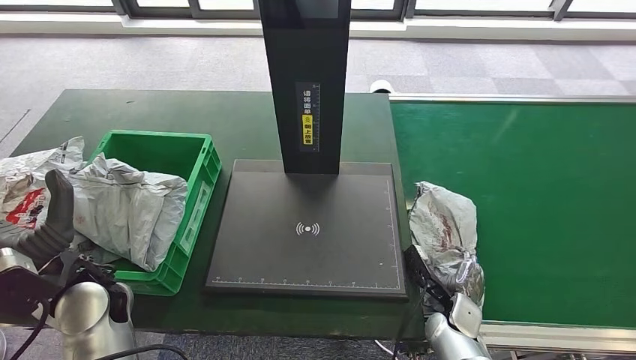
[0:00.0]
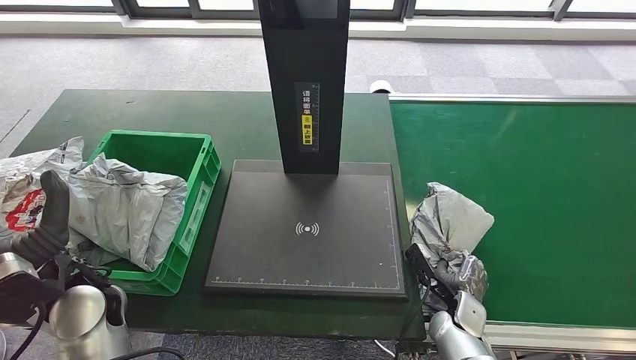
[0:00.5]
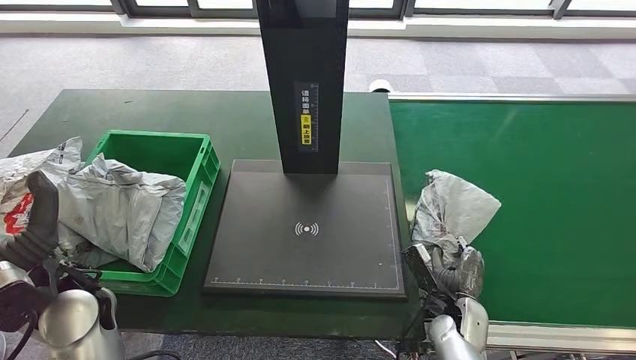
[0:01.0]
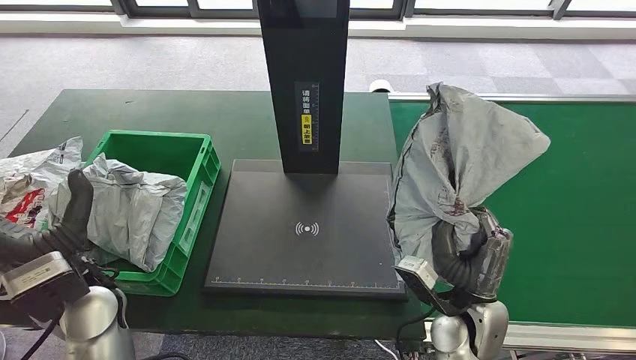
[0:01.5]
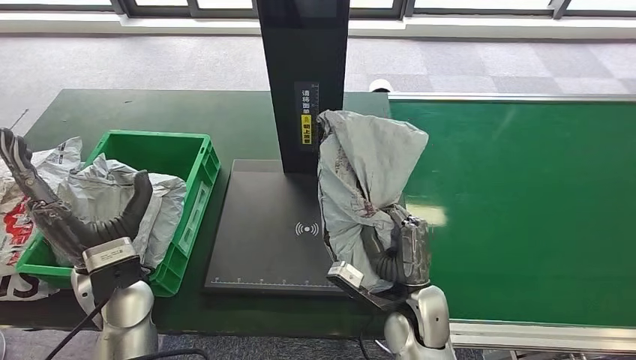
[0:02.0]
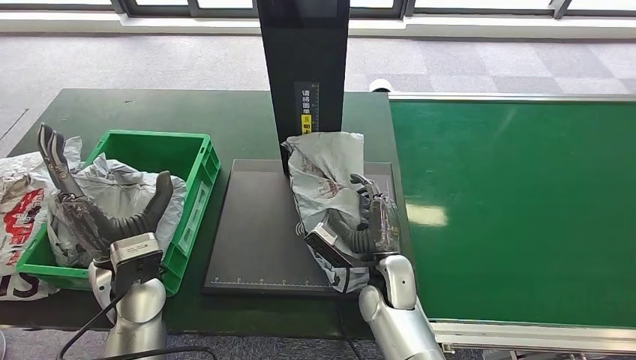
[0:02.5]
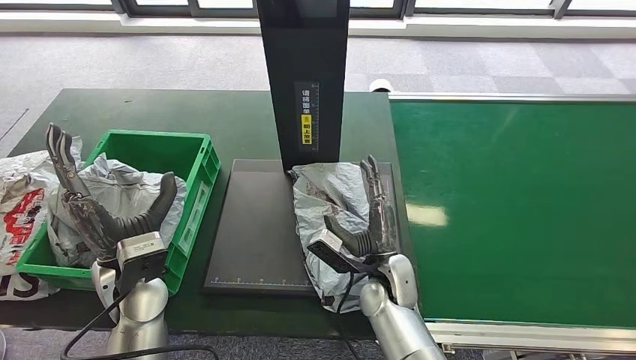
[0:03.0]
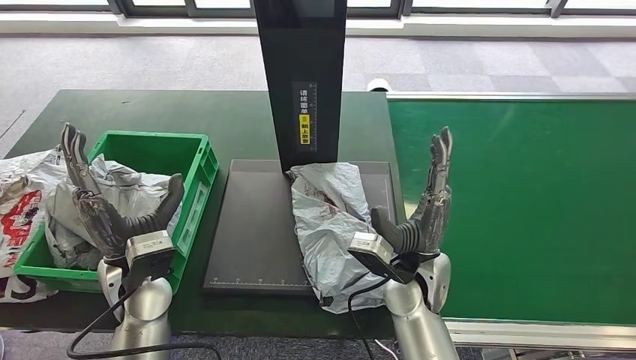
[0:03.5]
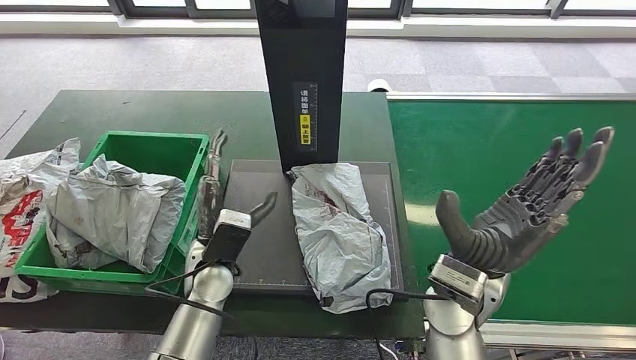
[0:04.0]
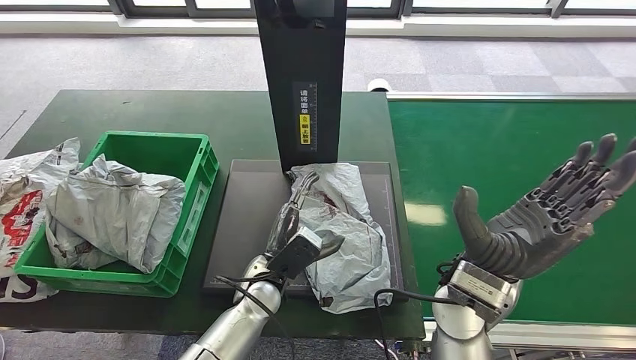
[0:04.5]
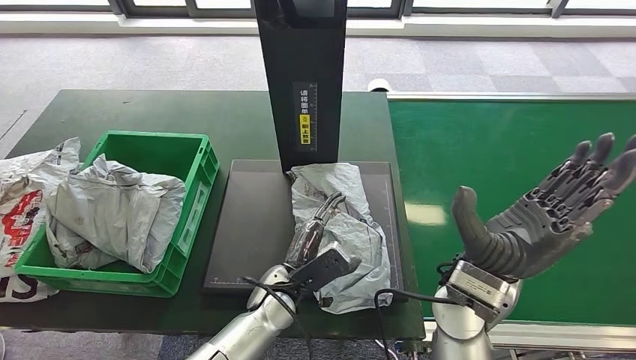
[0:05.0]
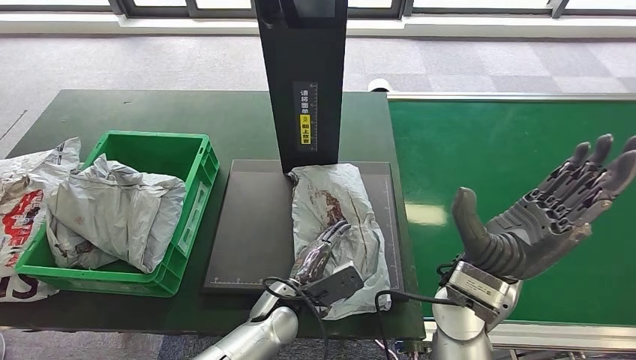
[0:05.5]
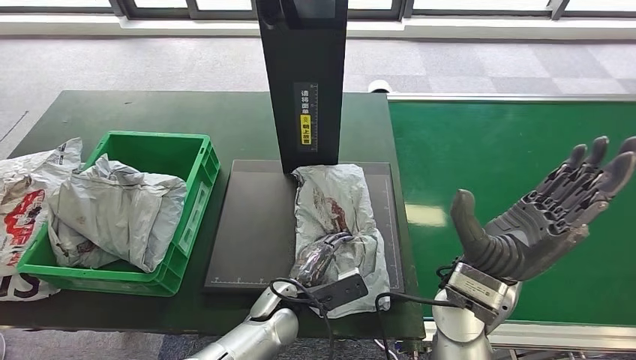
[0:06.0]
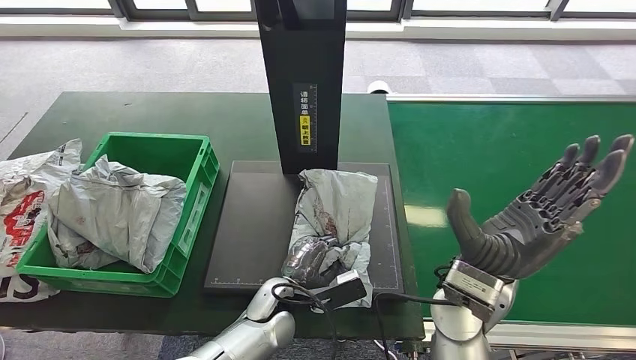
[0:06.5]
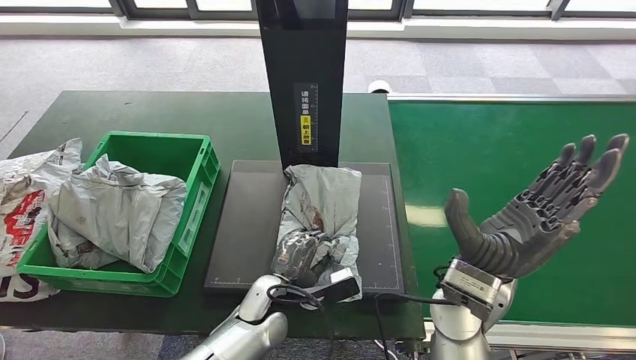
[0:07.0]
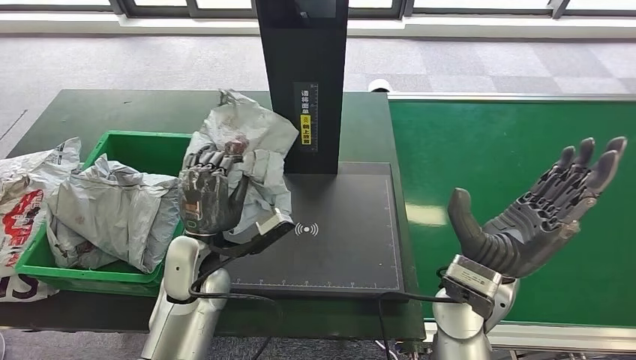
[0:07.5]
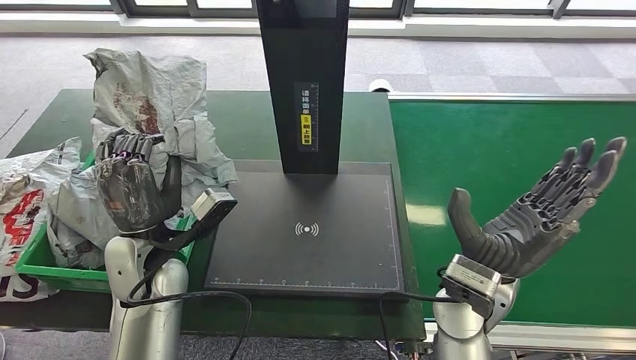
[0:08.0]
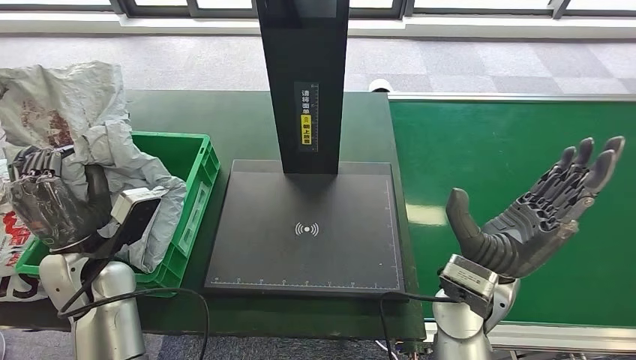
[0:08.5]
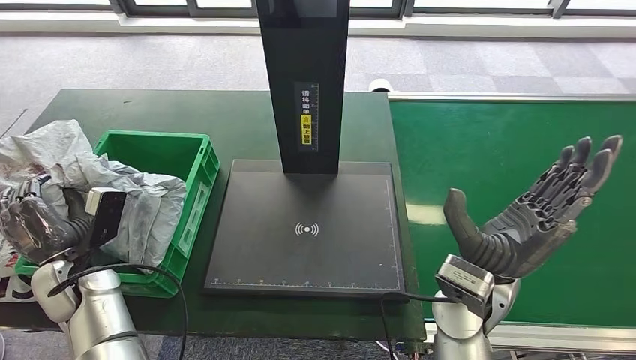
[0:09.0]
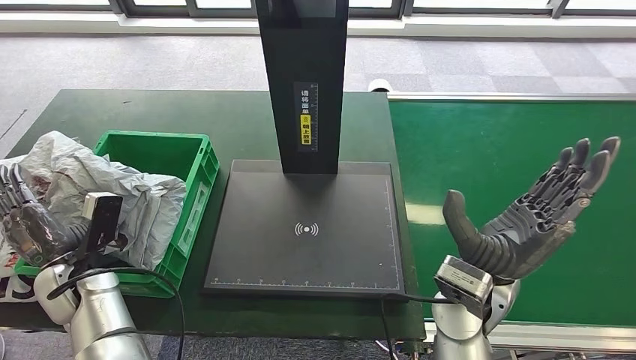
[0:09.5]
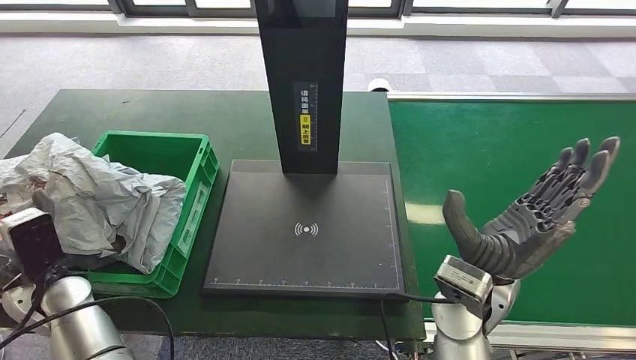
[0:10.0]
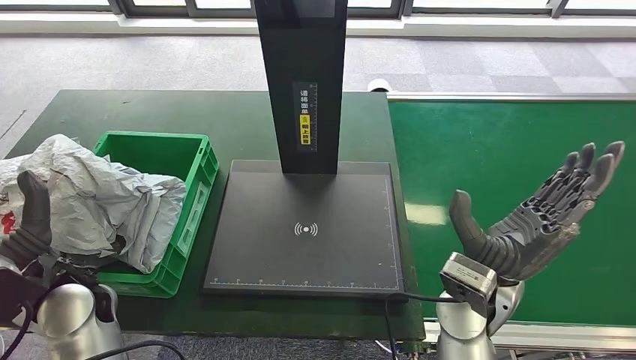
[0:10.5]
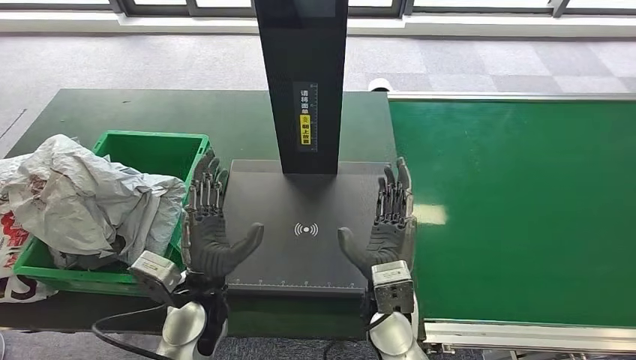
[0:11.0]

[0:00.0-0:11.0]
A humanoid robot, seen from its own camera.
Step, 0.5 to 1.5 s: Pick up the parcel from the conveyor belt.
Step, 2.0 to 4.0 s: Place the parcel onto the inbound machine.
Step, 7.0 to 8.5 s: Pick up the parcel from the inbound machine.
Step, 9.0 to 11.0 s: Place the parcel into the delivery box.
3.5 to 5.5 s: The left hand shifts about 20 cm to the right and downward; the right hand shifts some 10 cm upward and to the right.
5.5 to 7.5 s: The left hand moves to the left and upward, some 15 cm.
9.0 to 11.0 s: The right hand goes about 10 cm to the left and downward. The left hand is displaced to the right by approximately 20 cm.

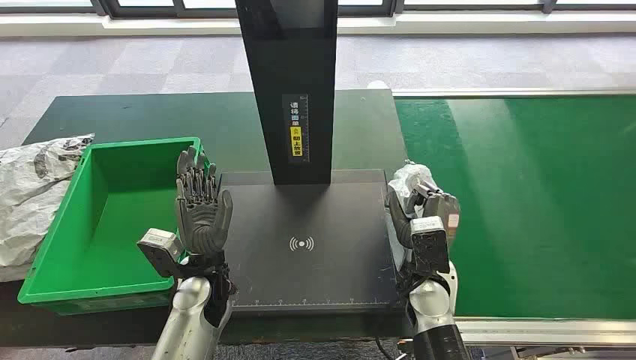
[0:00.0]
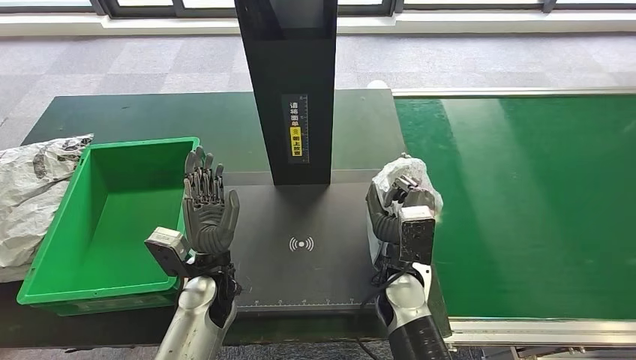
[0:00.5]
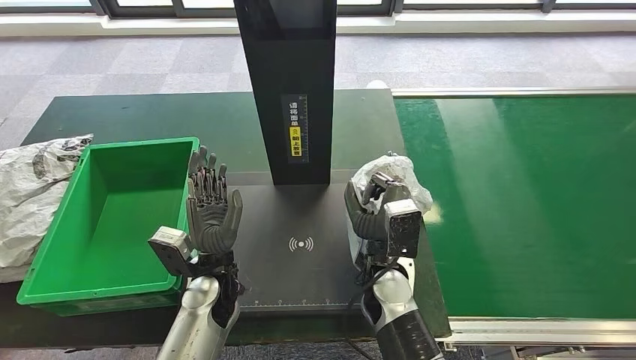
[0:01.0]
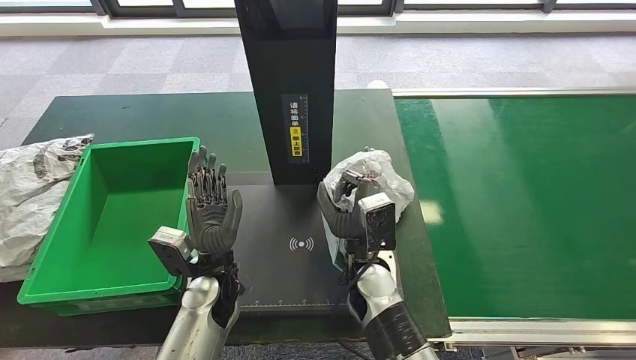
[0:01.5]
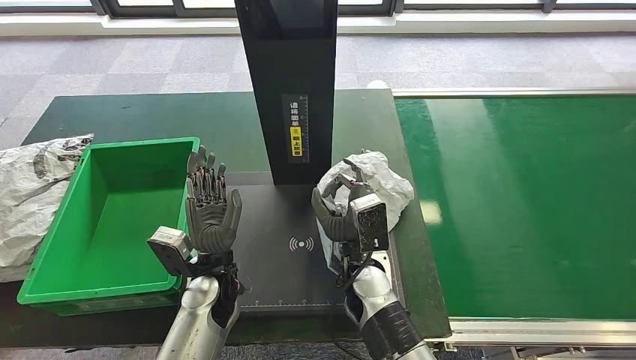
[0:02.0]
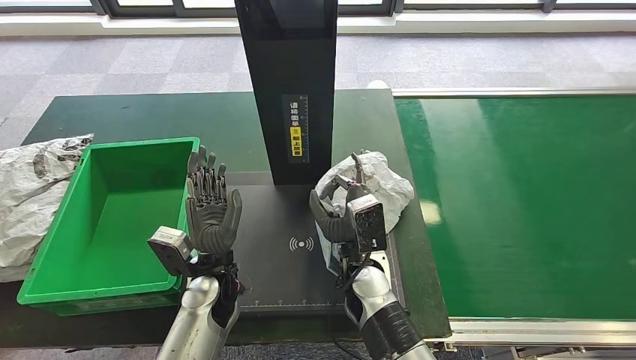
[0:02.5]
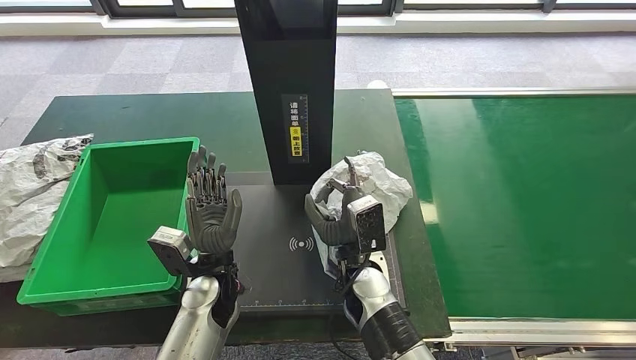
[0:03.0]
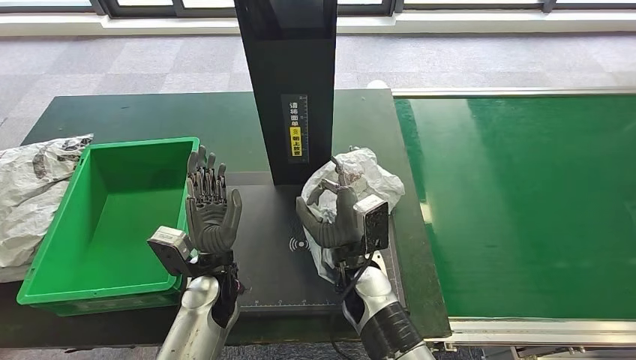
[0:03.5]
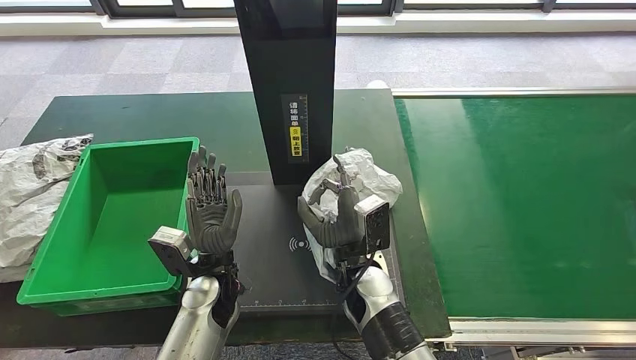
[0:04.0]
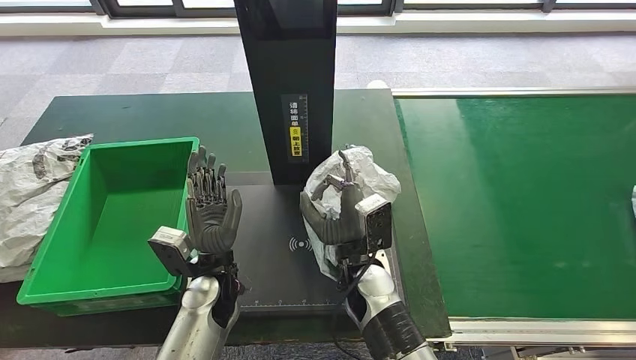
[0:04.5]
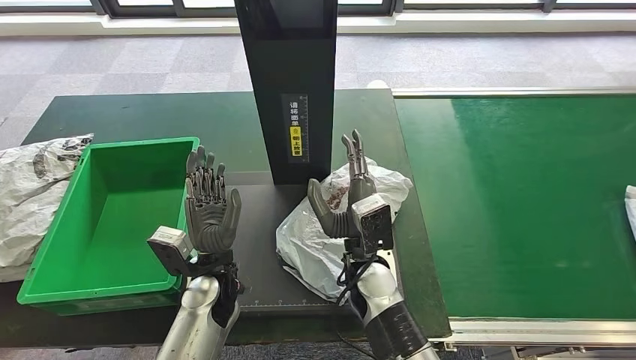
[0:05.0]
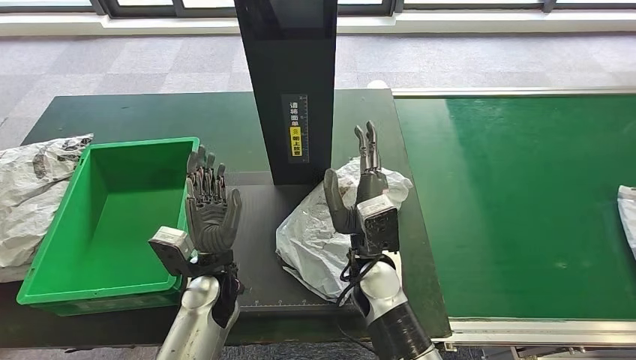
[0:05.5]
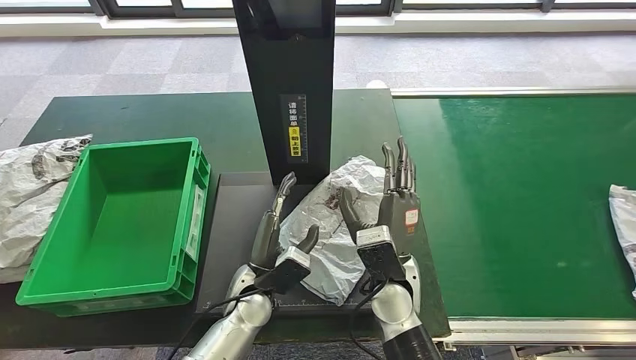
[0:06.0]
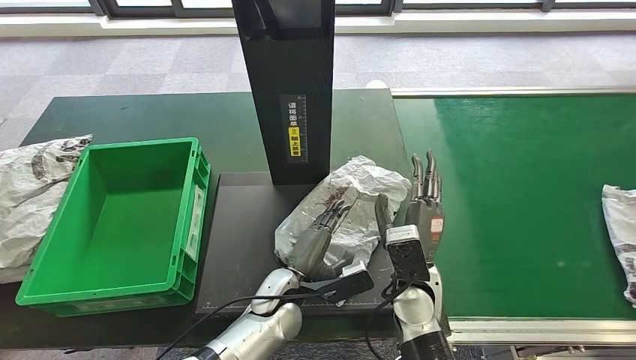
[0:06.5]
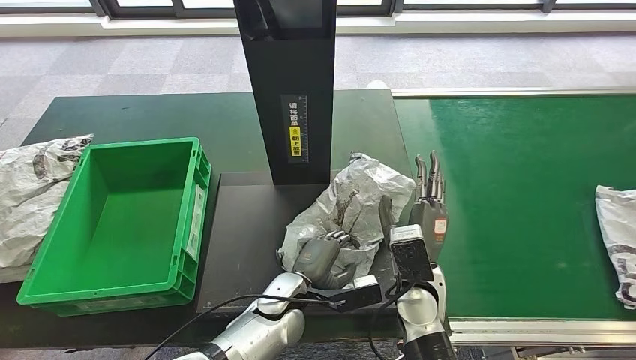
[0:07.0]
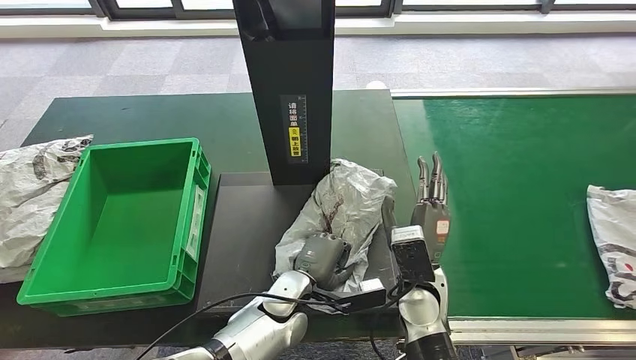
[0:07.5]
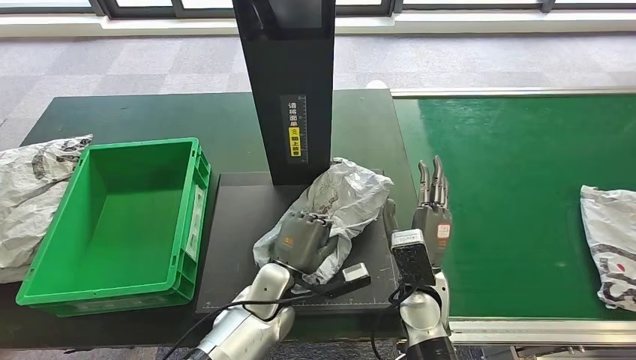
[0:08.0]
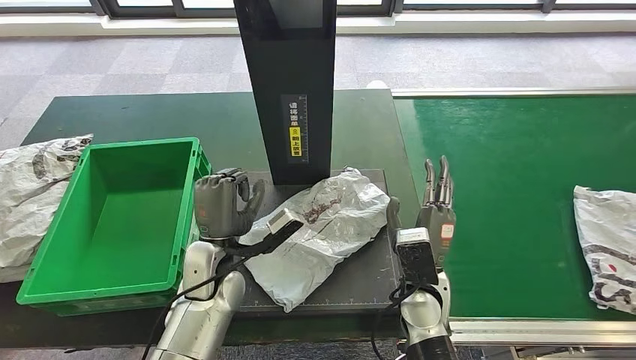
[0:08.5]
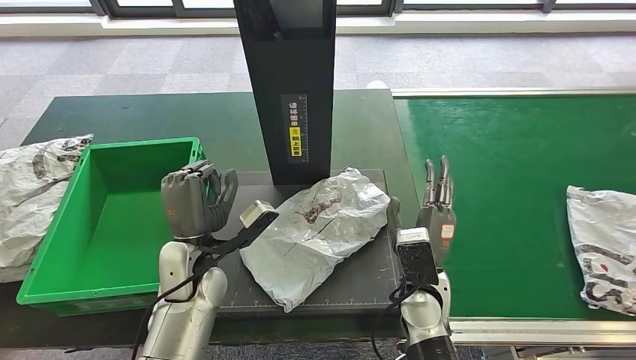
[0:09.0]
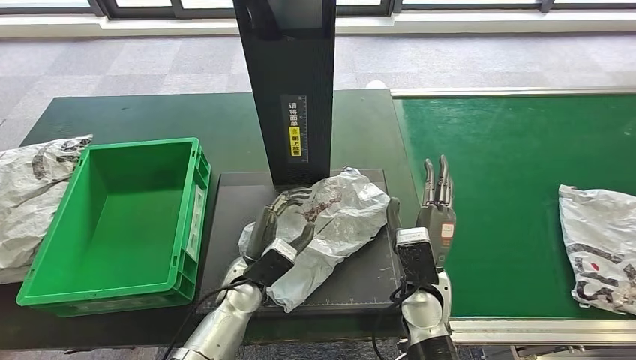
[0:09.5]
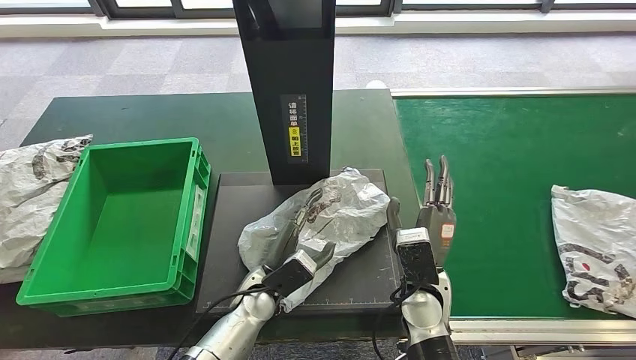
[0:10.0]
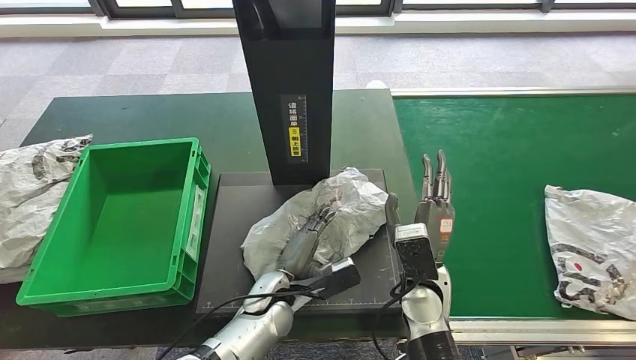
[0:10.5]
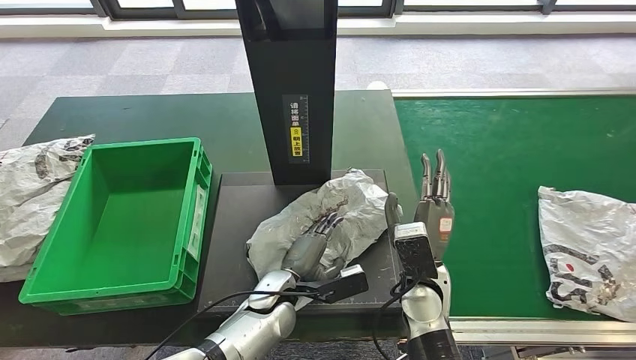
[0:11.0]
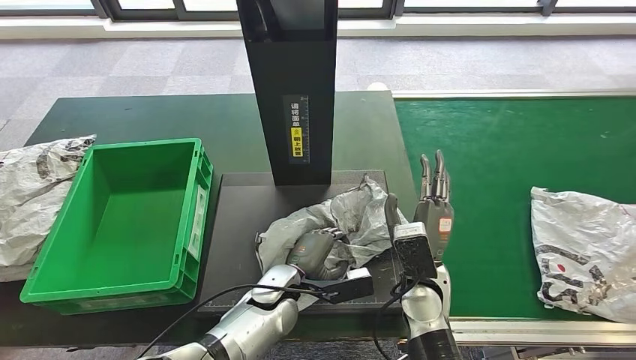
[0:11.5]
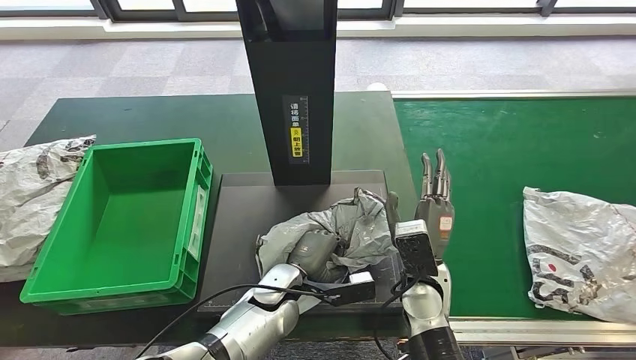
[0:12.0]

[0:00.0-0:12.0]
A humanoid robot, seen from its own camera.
2.0 to 4.0 s: The hands move only a little.
4.0 to 6.0 s: The right hand shifts by about 5 cm; the left hand heads to the right, covering about 5 cm.
6.0 to 8.0 s: The right hand is displaced to the right by roughly 5 cm.
8.0 to 10.0 s: The left hand reaches roughly 10 cm to the left, then returns.
